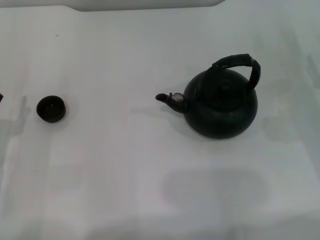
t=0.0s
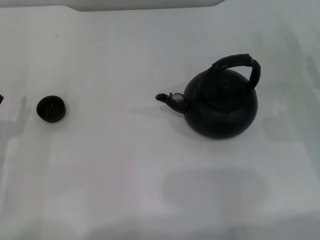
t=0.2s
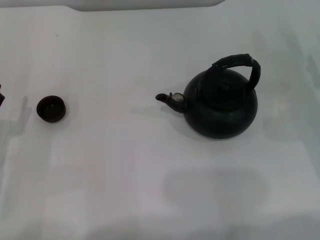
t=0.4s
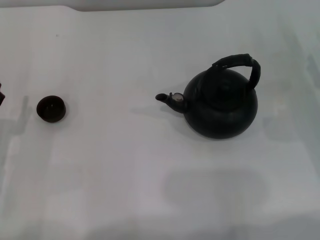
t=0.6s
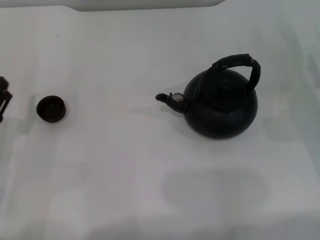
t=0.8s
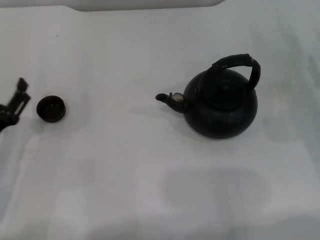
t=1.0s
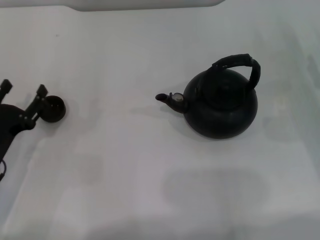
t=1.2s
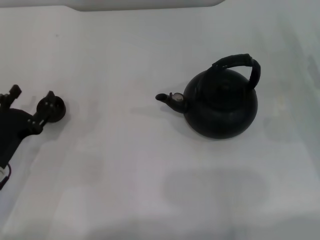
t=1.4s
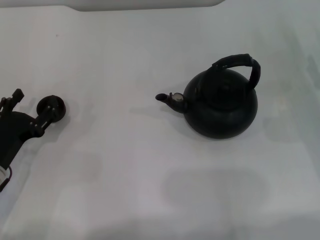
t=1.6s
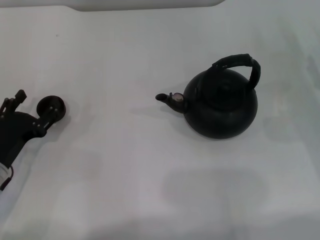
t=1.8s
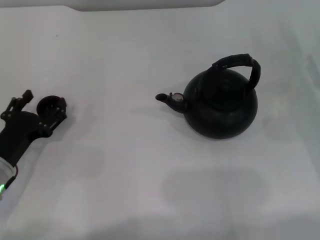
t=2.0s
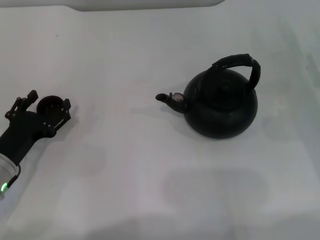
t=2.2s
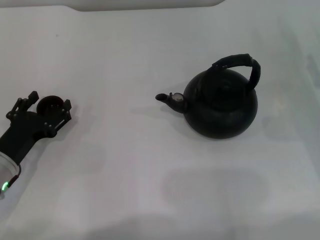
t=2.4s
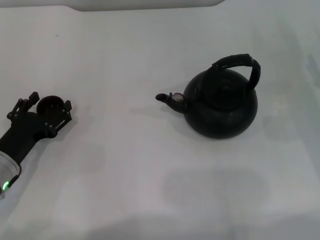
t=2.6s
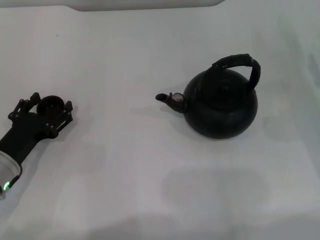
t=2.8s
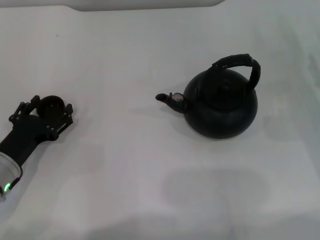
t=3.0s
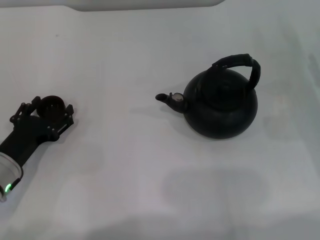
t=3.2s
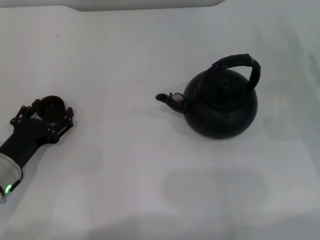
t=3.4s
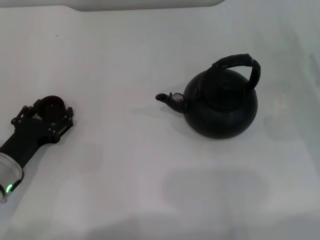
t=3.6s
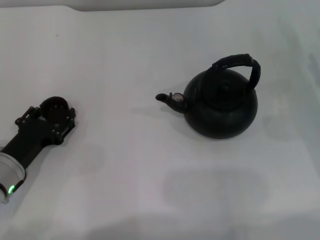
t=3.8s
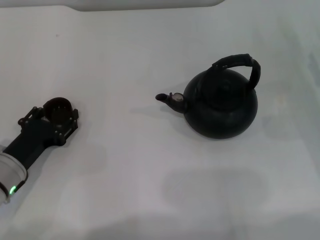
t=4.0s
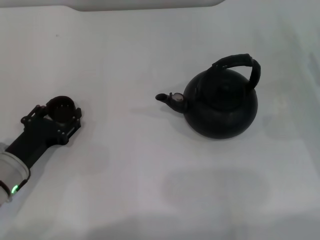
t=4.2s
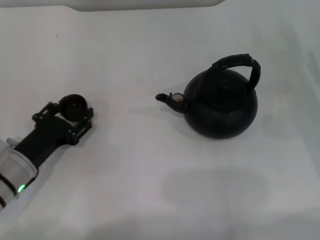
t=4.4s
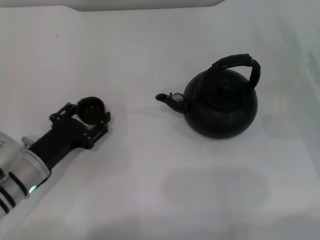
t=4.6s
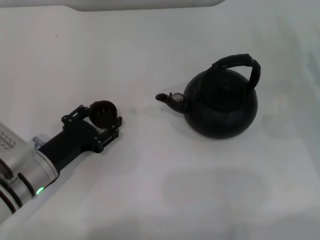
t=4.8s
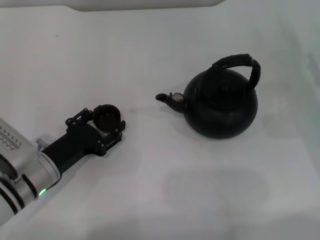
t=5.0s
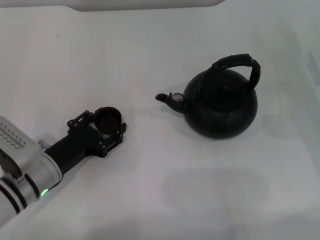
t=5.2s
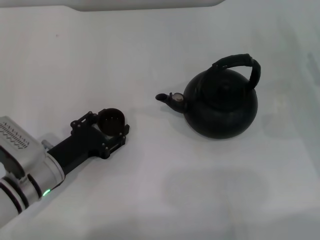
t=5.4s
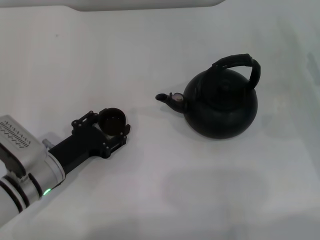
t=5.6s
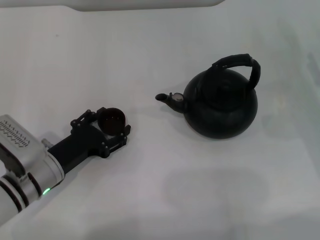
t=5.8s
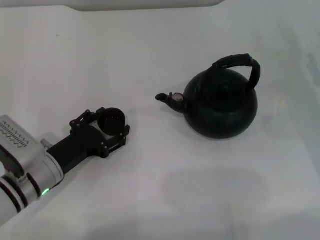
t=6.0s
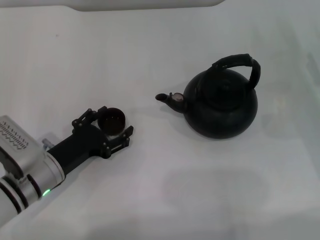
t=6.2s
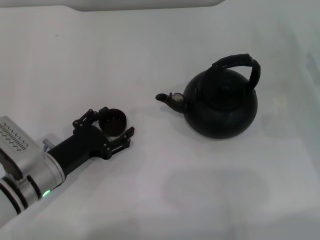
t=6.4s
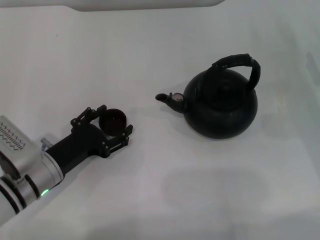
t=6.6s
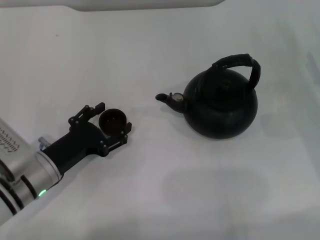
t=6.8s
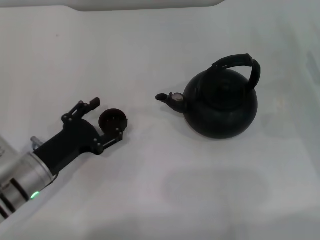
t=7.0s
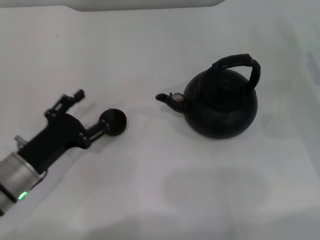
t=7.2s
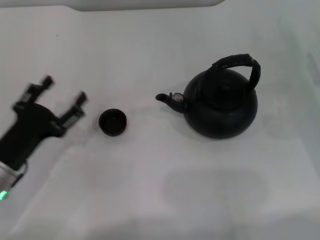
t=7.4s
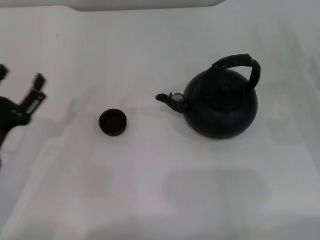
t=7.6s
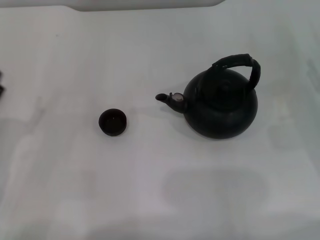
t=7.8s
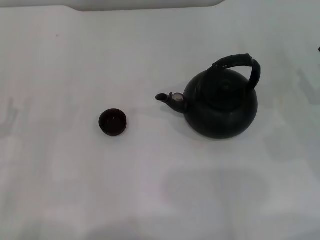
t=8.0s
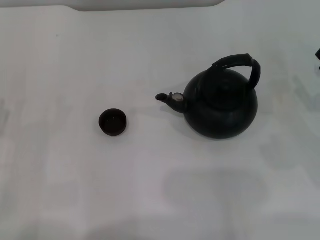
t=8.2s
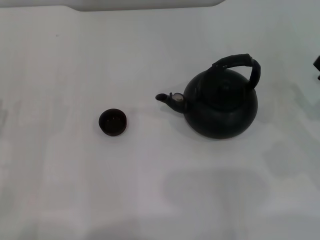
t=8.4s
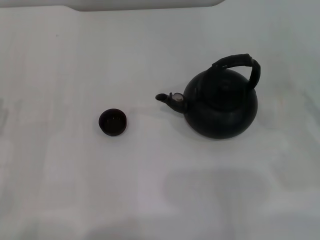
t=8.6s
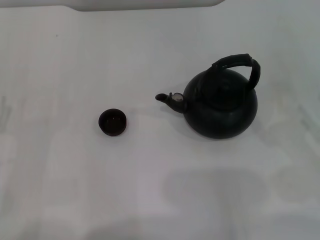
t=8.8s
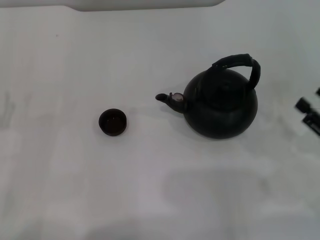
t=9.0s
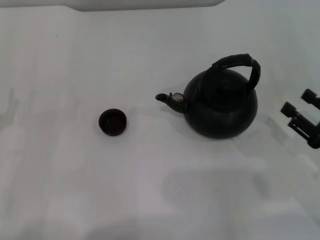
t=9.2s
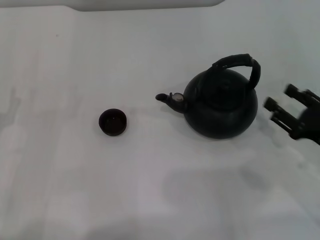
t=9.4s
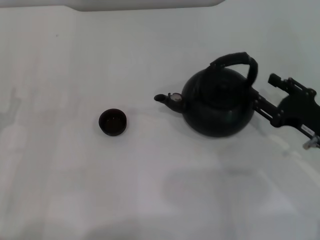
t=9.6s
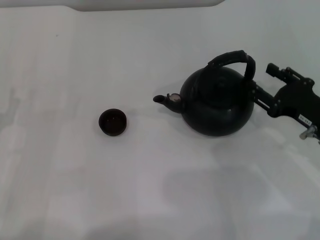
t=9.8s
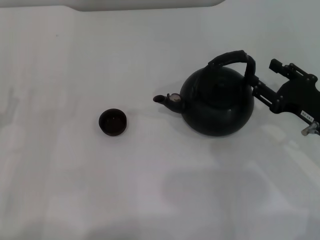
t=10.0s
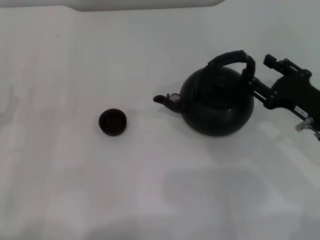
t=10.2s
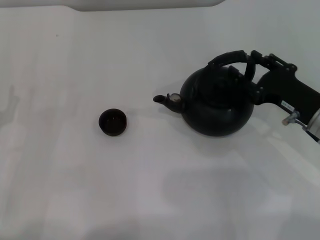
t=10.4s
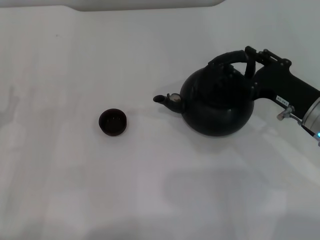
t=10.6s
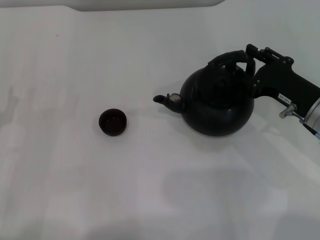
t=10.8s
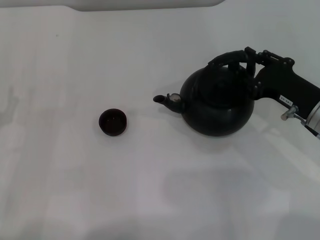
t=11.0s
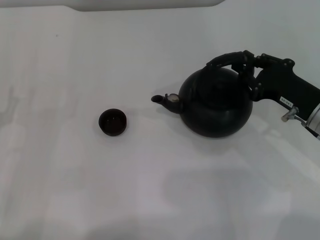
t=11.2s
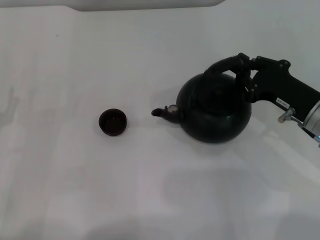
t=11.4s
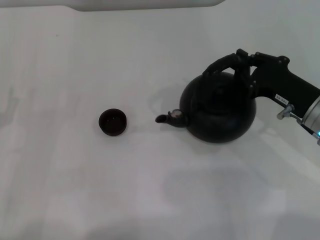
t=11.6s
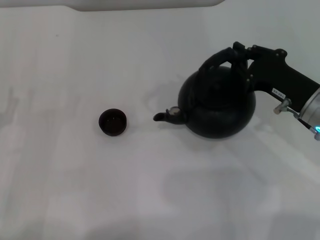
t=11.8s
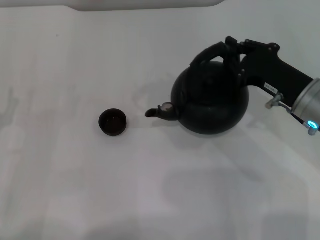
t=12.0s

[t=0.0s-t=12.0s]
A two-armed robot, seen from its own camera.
Task of the whole recording: Grasp the handle of the teapot with one hand and pour tea into the teacup.
Step, t=0.0s to t=3.8s: Pick up the teacup with the left gripper.
Step, t=4.0s to t=7.0s: Place the teacup in the center of view with the left gripper.
t=0.0s to t=1.6s: The grippers make only small movements.
t=1.6s to t=3.0s: The grippers move only a little.
t=3.0s to t=4.4s: The left gripper closes up.
t=4.4s to t=6.0s: There are only small adjustments of the grippers.
t=6.0s to t=7.6s: The left gripper shifts roughly 5 cm to the left, and opens its fingers.
t=7.6s to t=9.0s: The right gripper travels backward by some 10 cm.
t=9.0s to t=10.4s: The right gripper shifts about 10 cm to the left and forward.
t=10.4s to t=12.0s: The right gripper closes up.

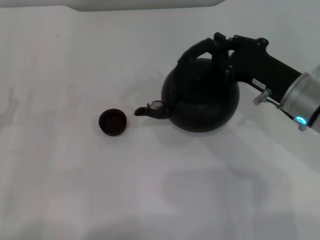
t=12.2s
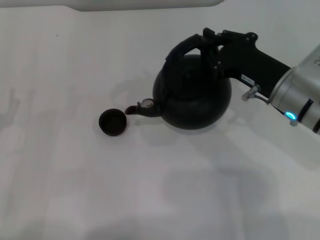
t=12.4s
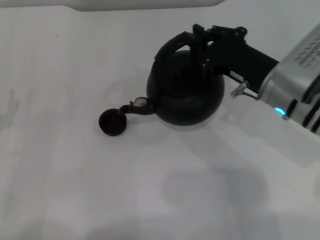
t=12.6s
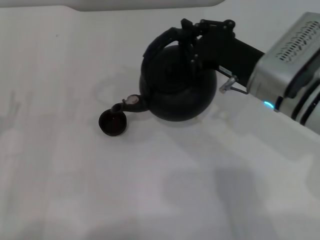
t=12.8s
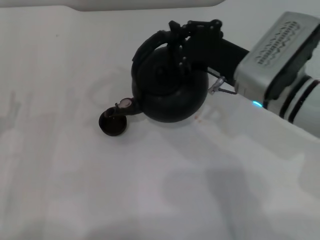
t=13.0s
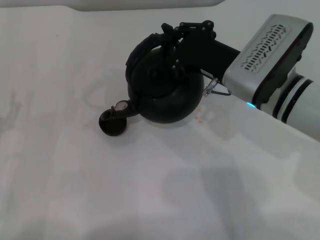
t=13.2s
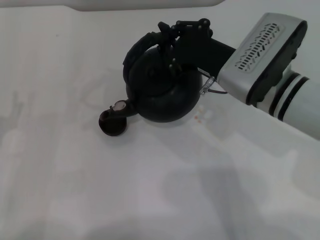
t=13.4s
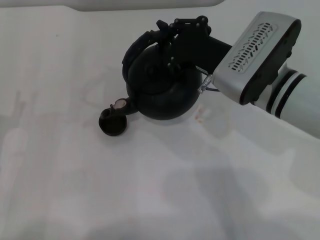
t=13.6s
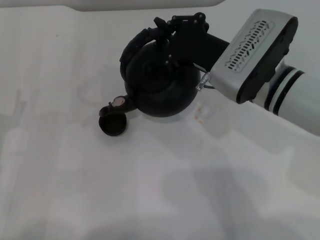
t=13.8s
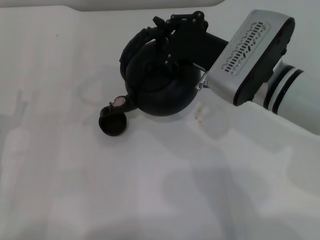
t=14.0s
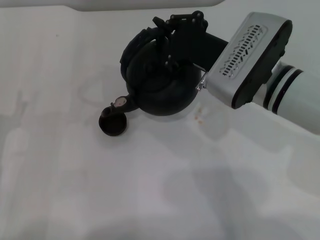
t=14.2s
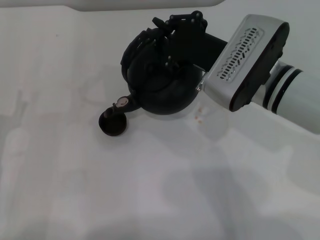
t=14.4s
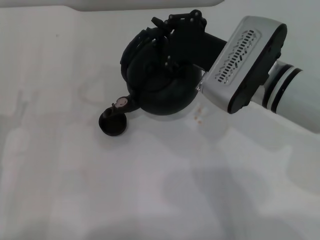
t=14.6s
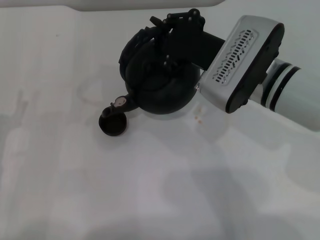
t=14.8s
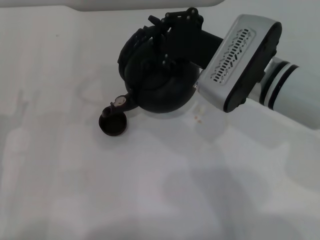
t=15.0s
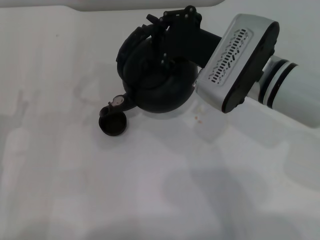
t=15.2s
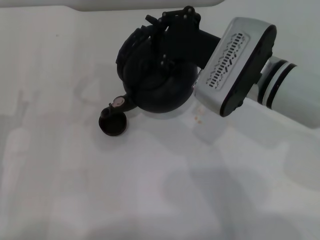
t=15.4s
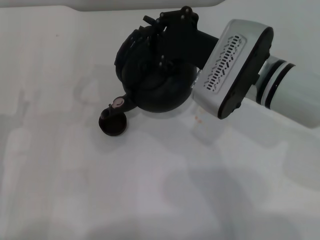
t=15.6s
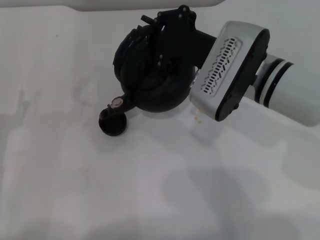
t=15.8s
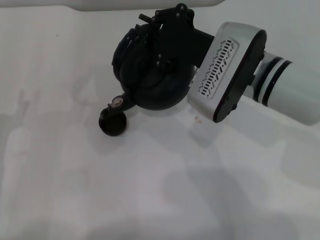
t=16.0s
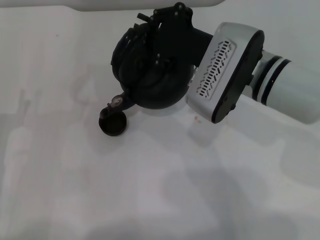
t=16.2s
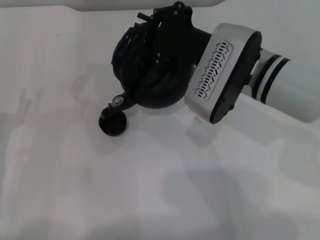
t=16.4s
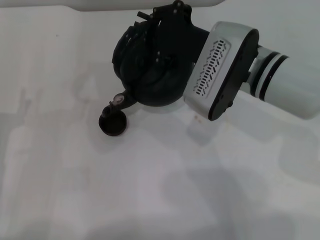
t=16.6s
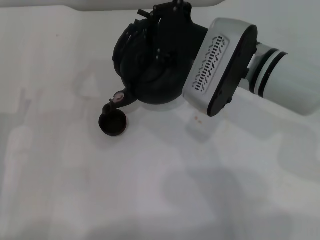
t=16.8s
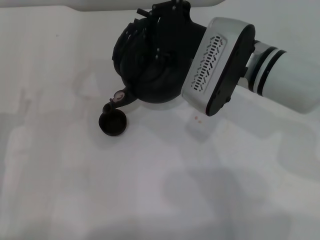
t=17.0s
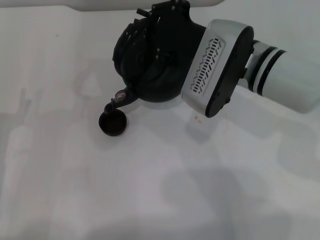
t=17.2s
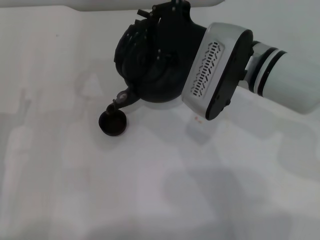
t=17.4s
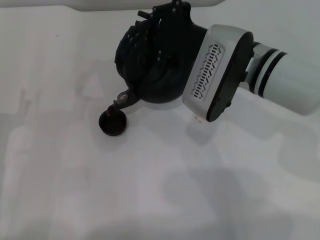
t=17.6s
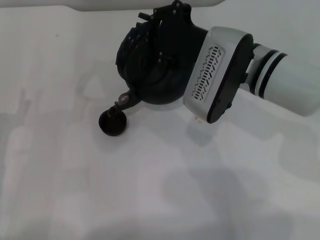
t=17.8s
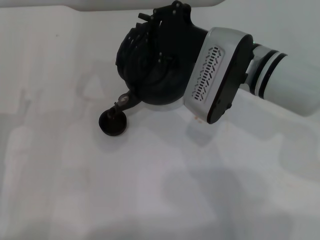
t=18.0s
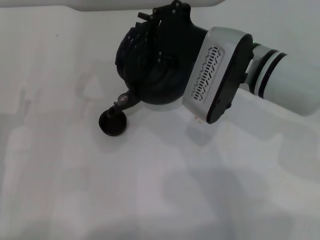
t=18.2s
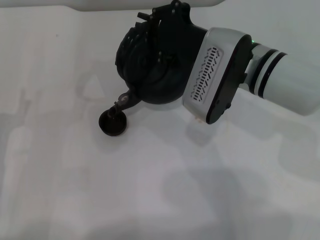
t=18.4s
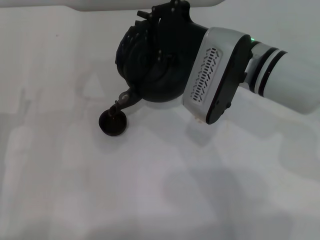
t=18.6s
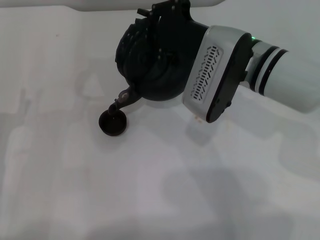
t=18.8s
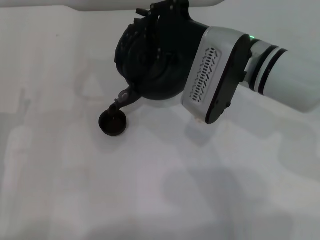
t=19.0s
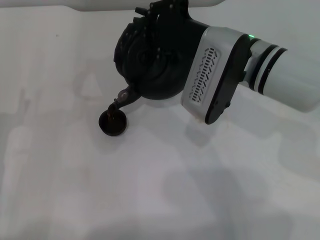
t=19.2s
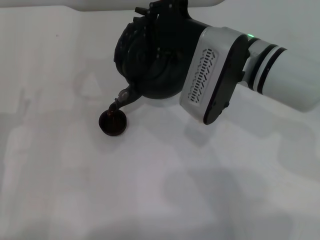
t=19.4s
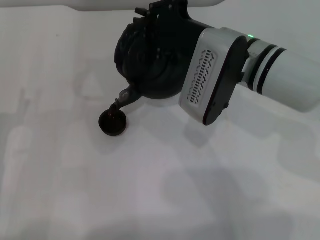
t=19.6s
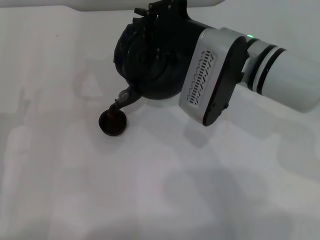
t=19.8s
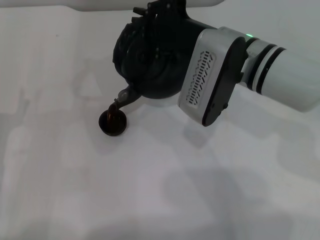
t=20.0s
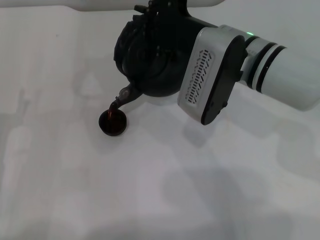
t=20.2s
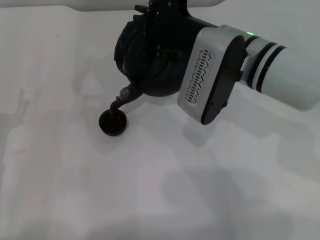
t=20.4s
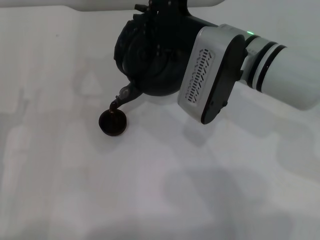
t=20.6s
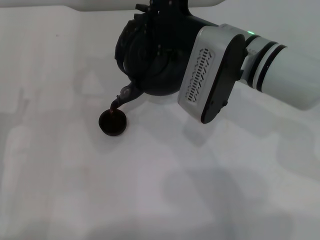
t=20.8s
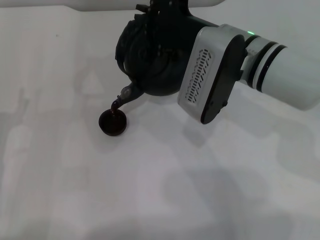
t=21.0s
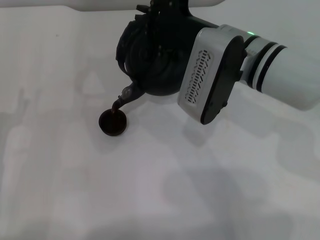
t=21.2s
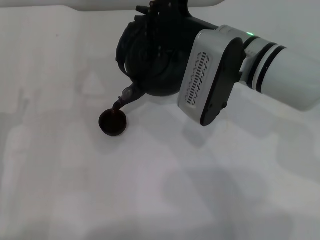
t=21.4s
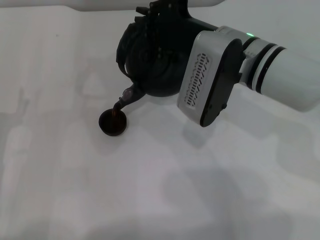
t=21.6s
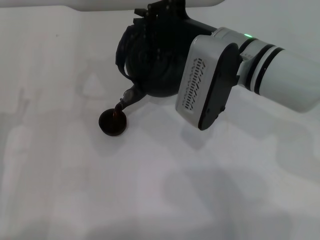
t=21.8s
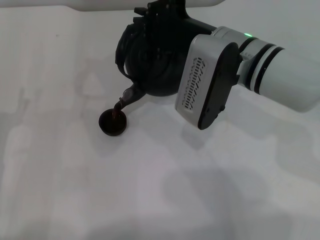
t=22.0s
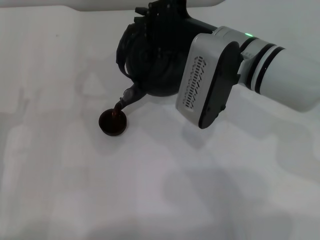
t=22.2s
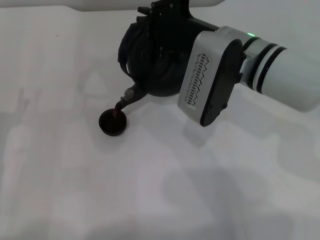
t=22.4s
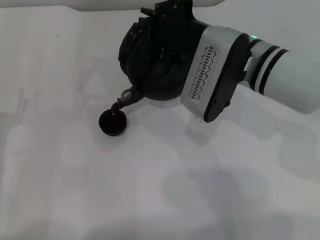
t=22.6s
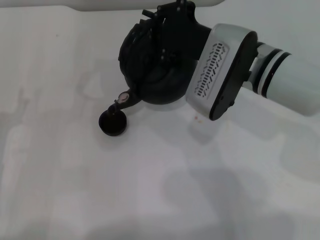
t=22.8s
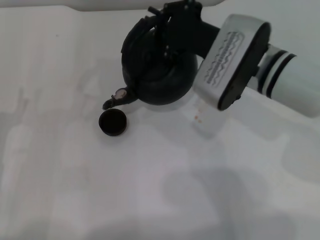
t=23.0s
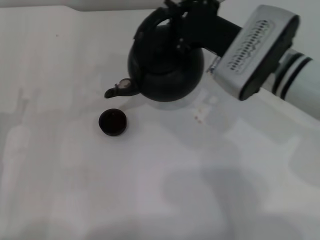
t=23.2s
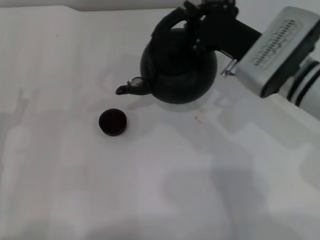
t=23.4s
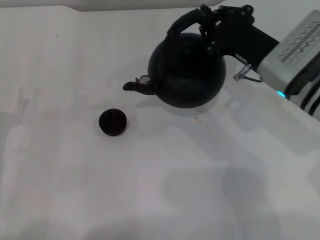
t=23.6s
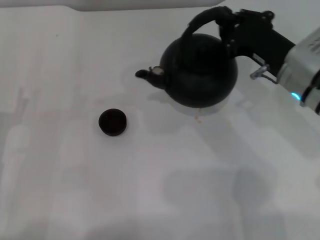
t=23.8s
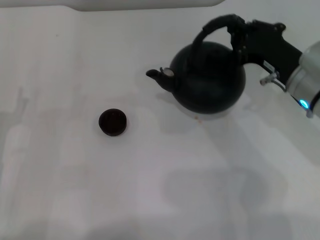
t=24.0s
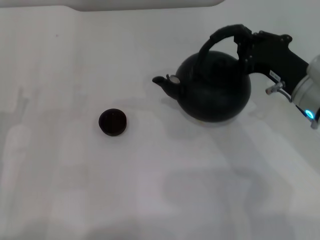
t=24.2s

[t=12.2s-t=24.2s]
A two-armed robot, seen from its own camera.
Task of the whole recording: Grasp the handle of the teapot with one hand and pour tea into the teacup.
Step, t=12.2s to t=23.2s: Pour tea into the teacup with the right gripper.
t=12.2s to t=13.8s: The right gripper goes about 10 cm to the left.
t=13.8s to t=15.2s: The grippers stay close to where they were, moving slightly.
t=15.2s to t=18.2s: There are only small adjustments of the grippers.
t=18.2s to t=19.8s: There are only small adjustments of the grippers.
t=19.8s to t=21.2s: Neither gripper changes place.
t=21.2s to t=22.6s: Both grippers stay put.
t=22.6s to t=24.2s: The right gripper heads to the right, covering some 10 cm.
